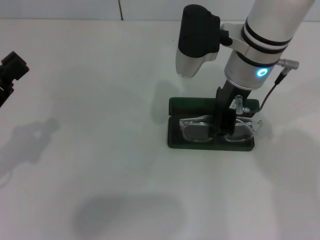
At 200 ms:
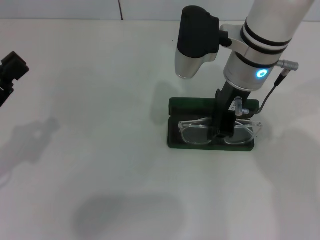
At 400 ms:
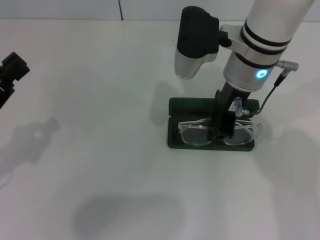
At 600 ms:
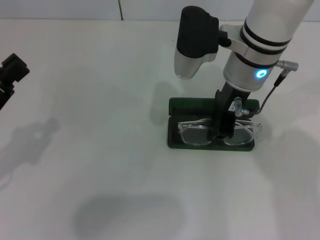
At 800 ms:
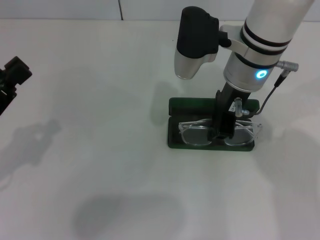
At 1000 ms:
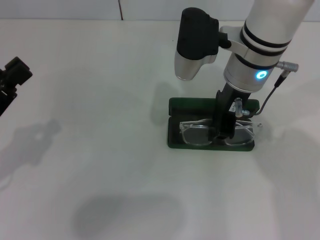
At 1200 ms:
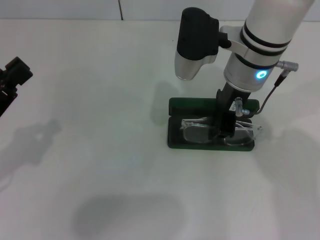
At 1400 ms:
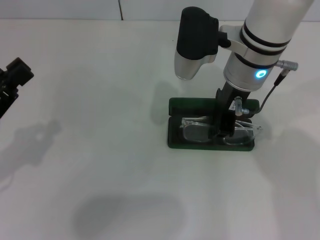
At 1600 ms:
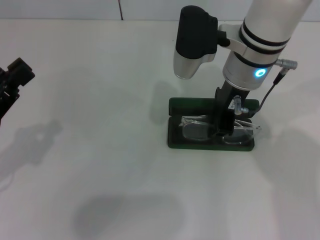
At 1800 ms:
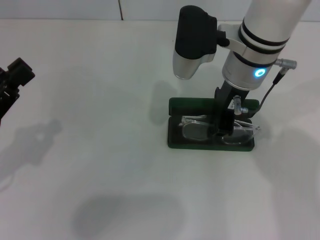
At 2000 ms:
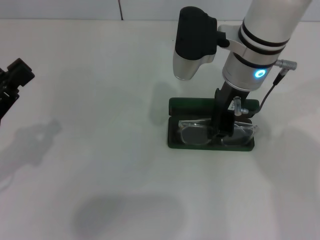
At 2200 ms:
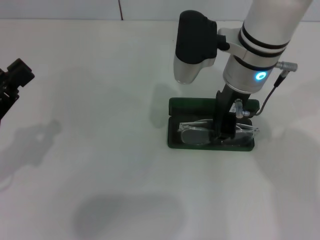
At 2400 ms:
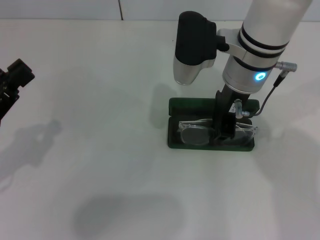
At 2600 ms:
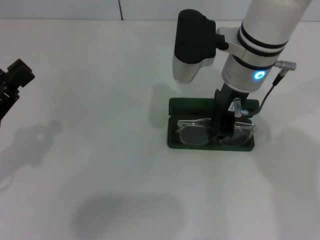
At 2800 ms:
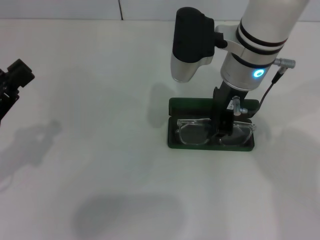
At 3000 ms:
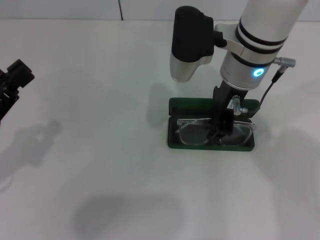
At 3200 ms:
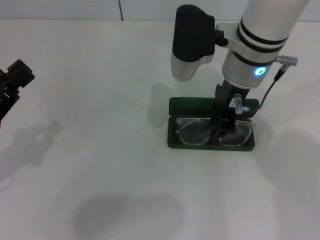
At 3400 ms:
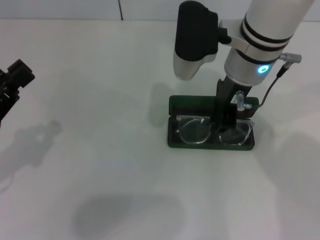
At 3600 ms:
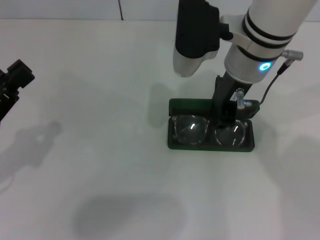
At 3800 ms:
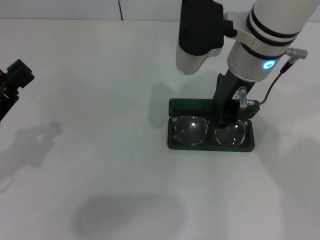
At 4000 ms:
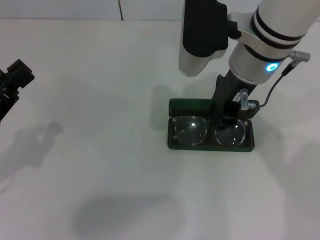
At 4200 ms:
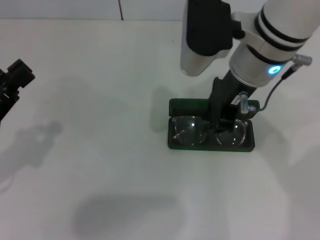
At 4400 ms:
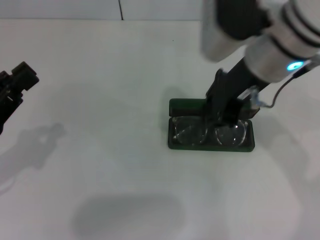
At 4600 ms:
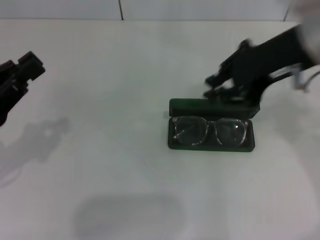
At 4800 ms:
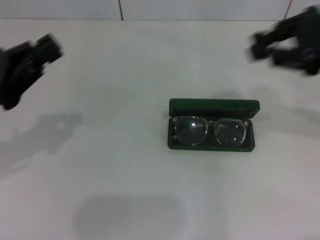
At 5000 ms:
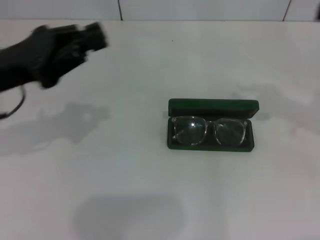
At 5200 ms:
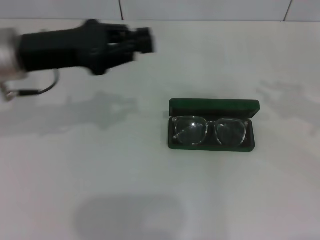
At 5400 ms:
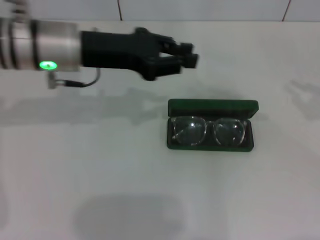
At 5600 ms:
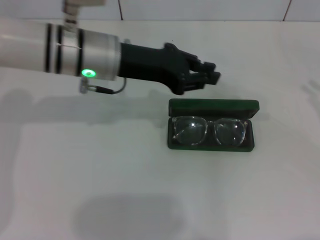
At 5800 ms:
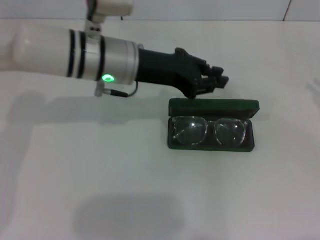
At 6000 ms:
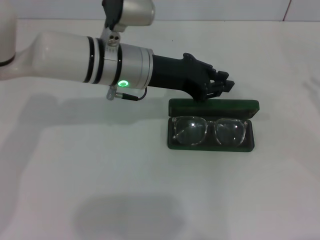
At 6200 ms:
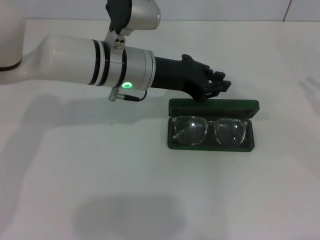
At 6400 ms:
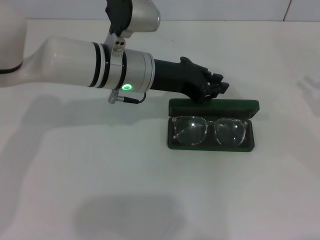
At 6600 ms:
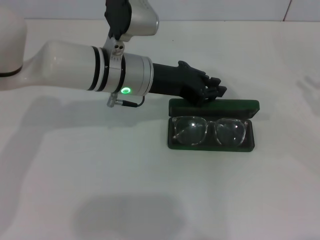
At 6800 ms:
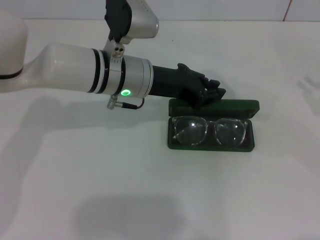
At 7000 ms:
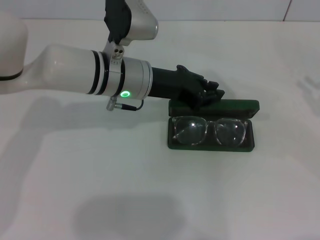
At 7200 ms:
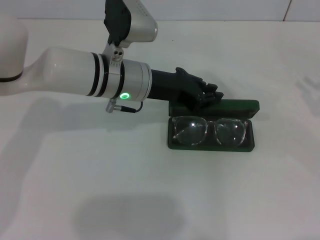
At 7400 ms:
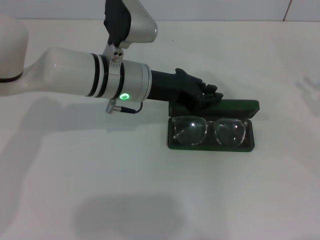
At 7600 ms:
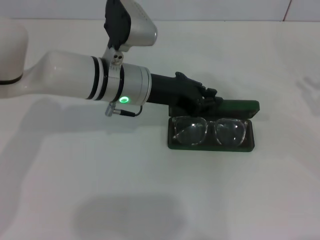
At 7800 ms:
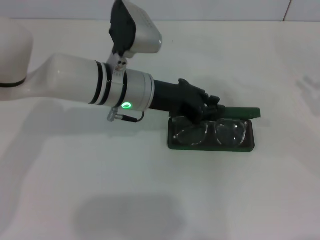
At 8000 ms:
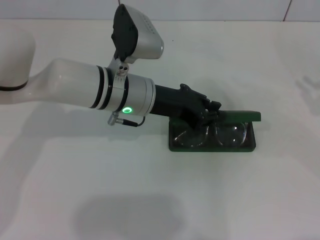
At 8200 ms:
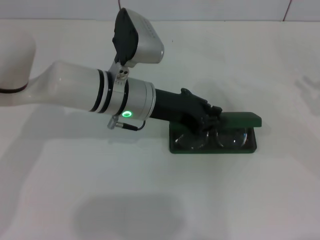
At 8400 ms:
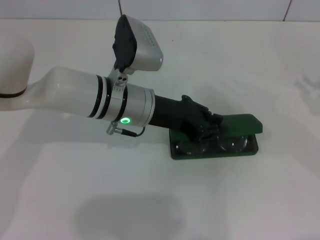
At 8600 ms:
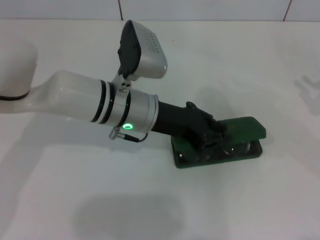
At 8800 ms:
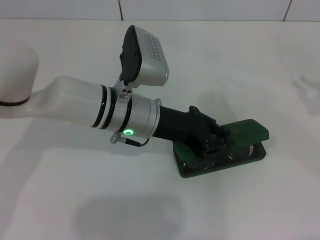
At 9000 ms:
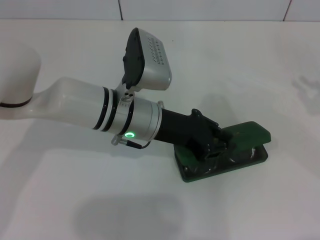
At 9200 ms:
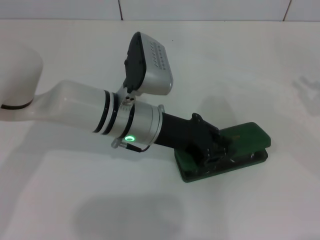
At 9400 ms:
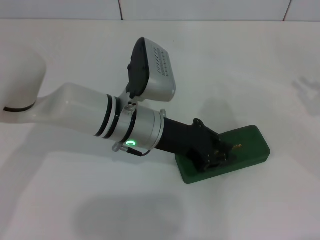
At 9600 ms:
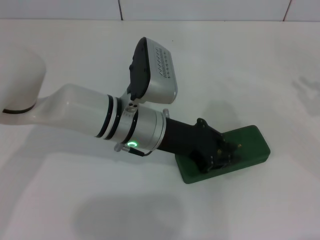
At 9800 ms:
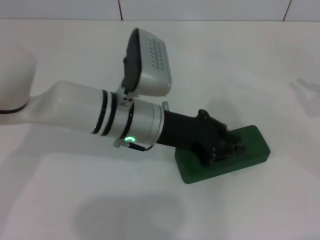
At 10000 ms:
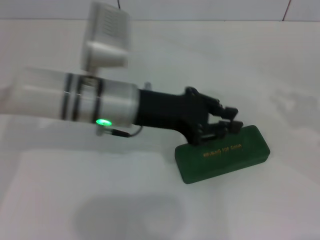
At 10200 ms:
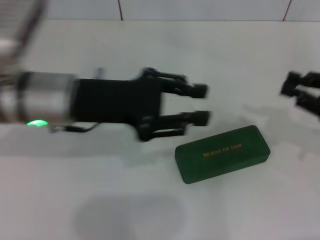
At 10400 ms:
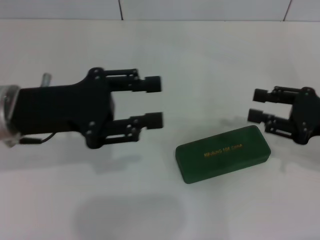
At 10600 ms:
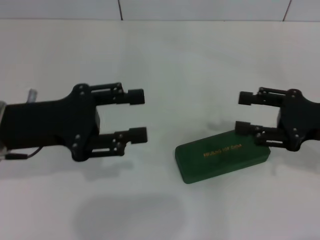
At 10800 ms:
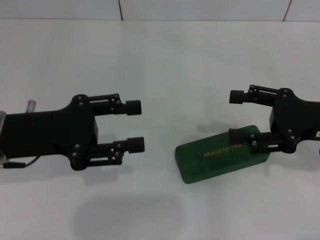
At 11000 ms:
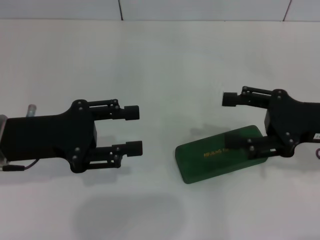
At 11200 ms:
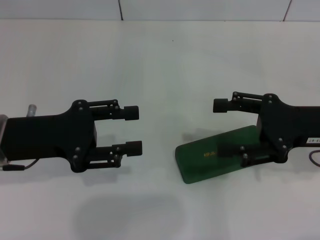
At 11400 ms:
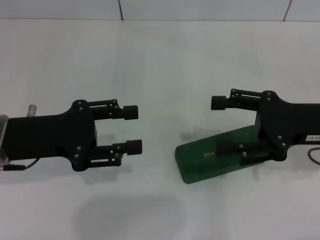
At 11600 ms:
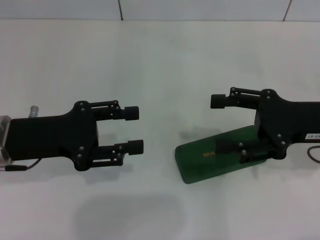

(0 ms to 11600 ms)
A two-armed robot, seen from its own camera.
Step, 0 ms - 4400 ms: Put the glasses into the case with your right hand.
Step, 4600 ms - 10000 ms: Close the glasses case with your left hand.
0 ms - 2800 ms: Both grippers stay about where they are.
2800 ms - 4400 ms: The right gripper moves some 5 cm.
4400 ms - 5800 ms: The left gripper goes about 25 cm to the right and forward. Meanwhile the right gripper travels to the right by about 30 cm.
5800 ms - 7200 ms: The grippers move only a little.
8800 ms - 10200 ms: The left gripper heads to the left and upward, covering approximately 10 cm, while the right gripper shifts roughly 5 cm to the left.
10200 ms - 11600 ms: Both grippers travel together to the left, about 10 cm. The left gripper opens up. Meanwhile the right gripper opens up.
